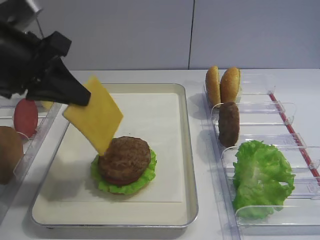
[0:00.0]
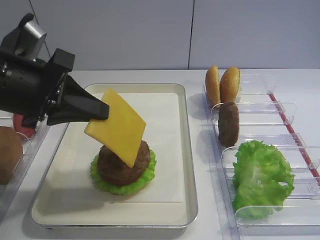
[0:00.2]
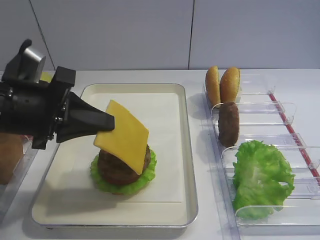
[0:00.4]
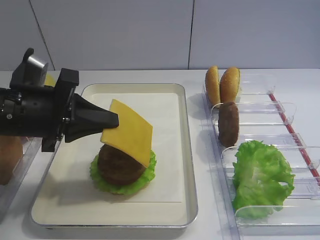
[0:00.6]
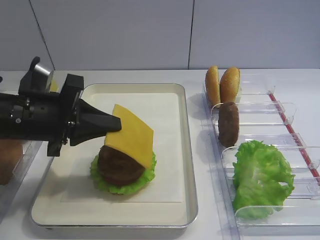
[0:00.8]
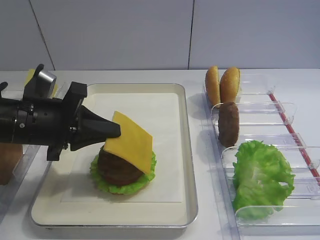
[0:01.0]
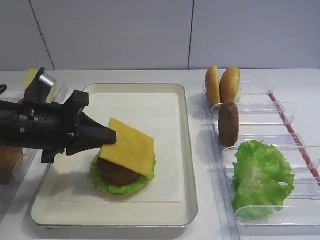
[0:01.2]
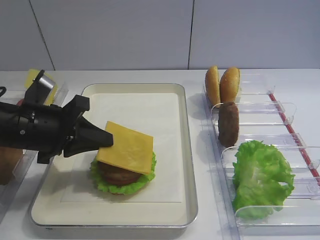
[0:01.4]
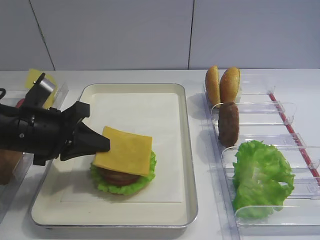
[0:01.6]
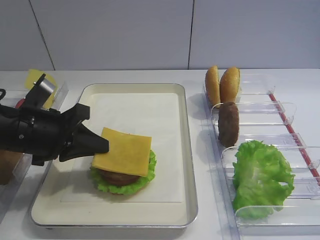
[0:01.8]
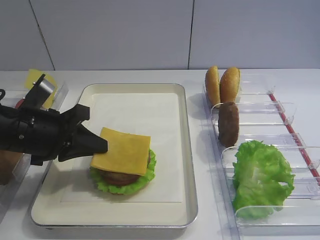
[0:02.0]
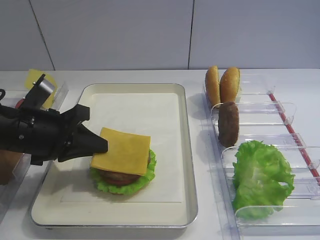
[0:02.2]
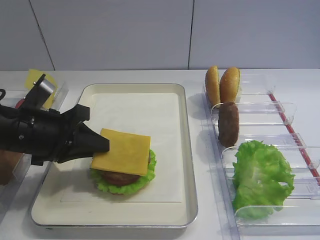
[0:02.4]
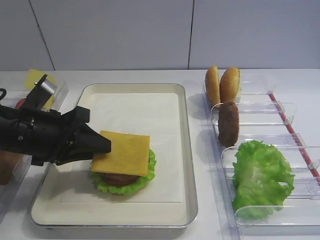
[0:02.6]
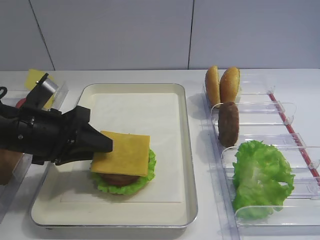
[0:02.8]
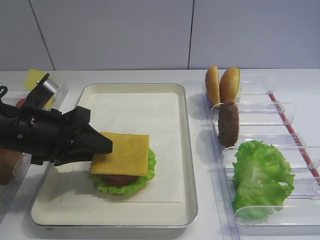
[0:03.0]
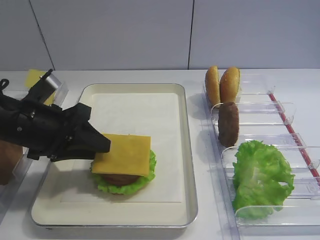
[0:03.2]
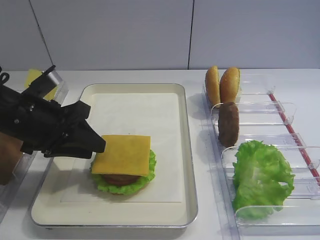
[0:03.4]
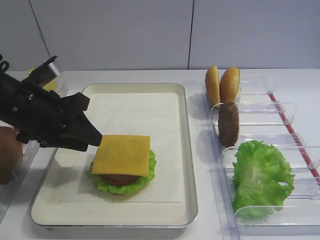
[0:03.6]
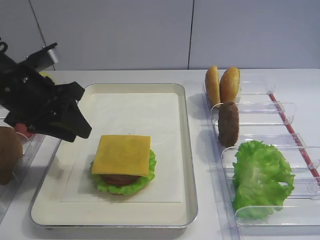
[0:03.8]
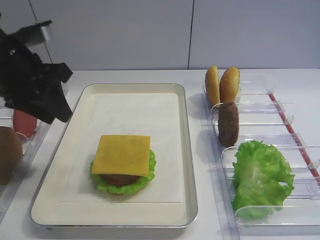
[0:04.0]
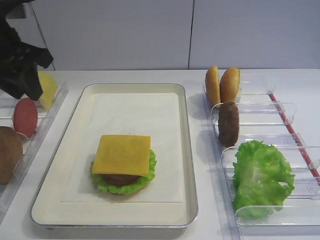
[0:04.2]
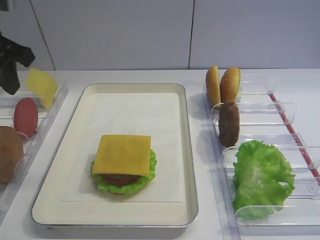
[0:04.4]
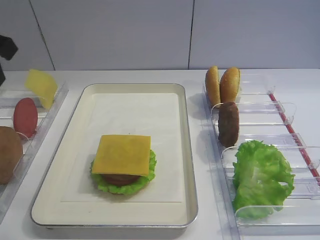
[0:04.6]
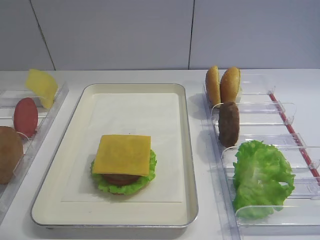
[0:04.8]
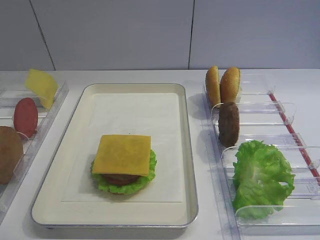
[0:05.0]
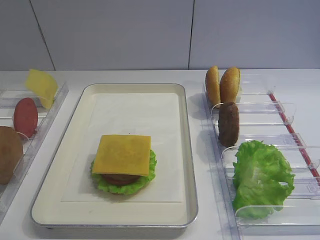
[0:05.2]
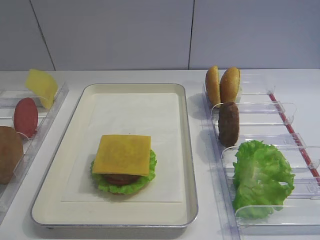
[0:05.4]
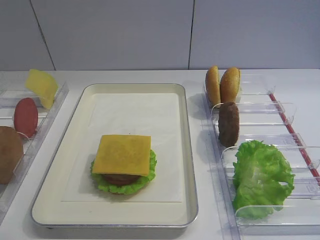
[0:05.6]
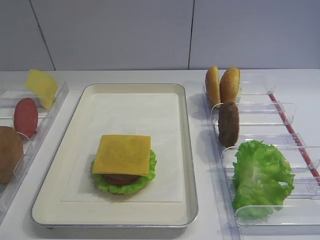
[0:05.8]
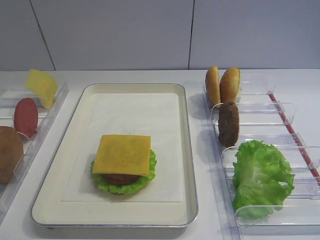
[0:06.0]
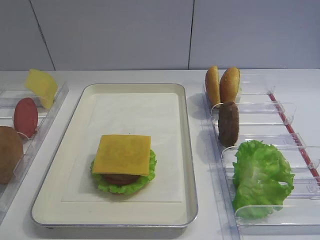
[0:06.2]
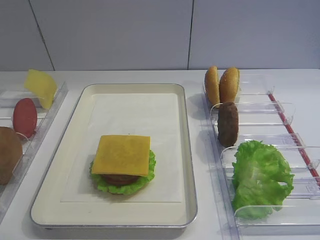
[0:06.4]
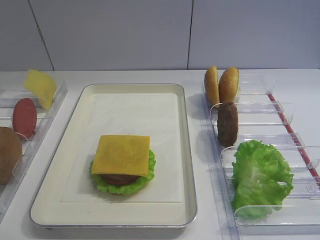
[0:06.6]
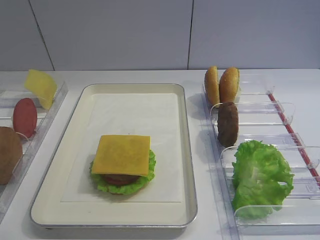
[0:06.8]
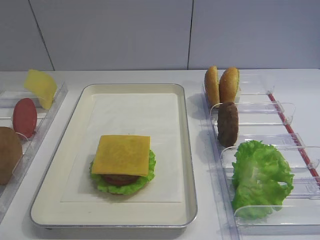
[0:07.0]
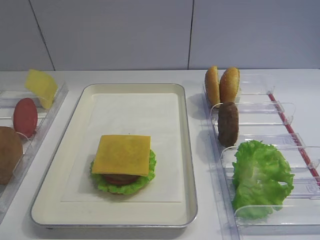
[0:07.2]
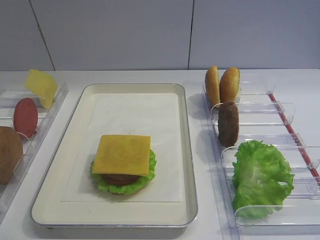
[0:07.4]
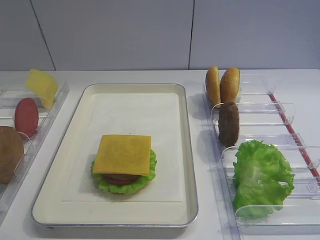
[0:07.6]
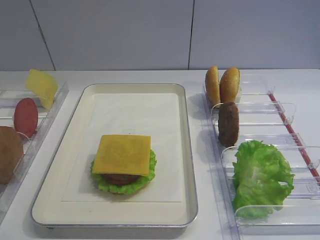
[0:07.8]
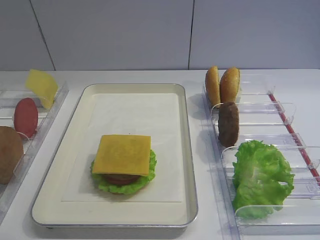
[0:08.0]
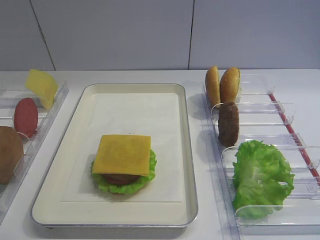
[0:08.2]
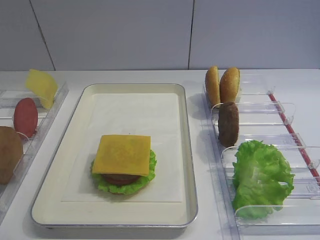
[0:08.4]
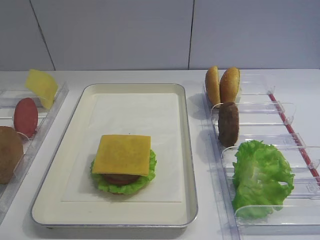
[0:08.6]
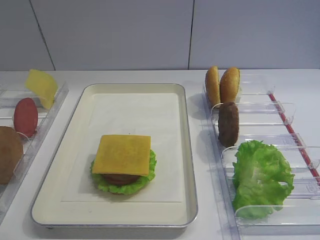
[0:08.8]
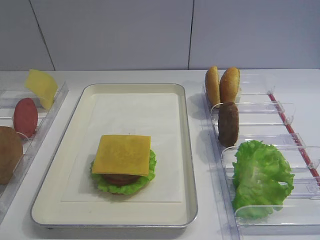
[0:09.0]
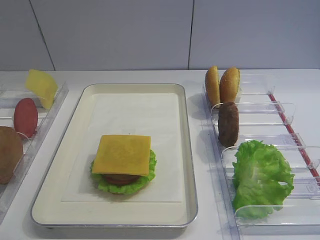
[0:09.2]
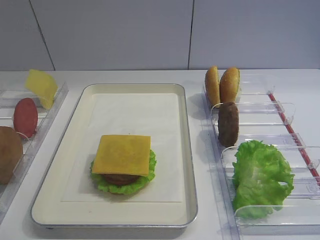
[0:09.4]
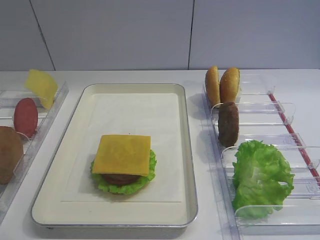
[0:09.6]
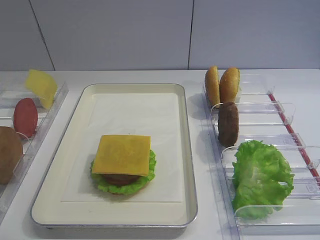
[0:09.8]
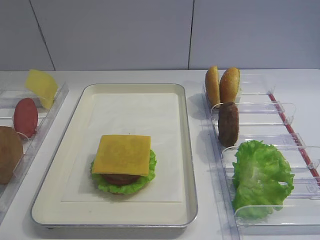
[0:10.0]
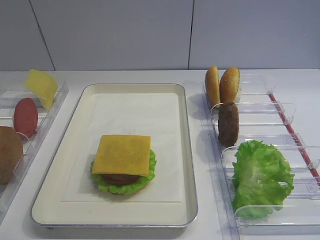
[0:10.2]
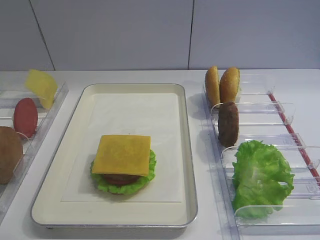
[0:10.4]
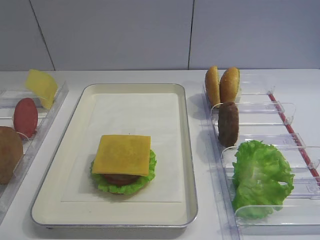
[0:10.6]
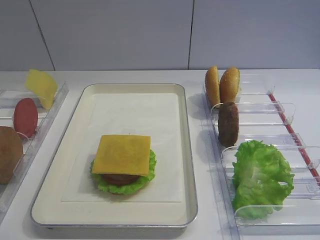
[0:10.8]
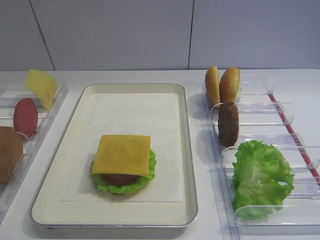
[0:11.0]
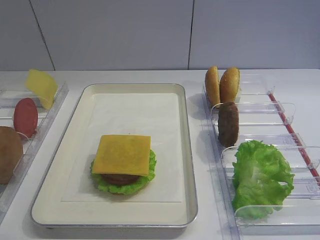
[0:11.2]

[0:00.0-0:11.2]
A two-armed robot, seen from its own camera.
Step, 0:00.0 to 0:03.4: Place the cheese slice on the cutlet with the left gripper.
0:00.0 to 0:01.6: The left gripper shifts roughly 10 cm downward.
0:01.6 to 0:03.2: The left gripper opens.
0:03.2 to 0:04.8: The left gripper travels upward and to the left by about 20 cm.
0:08.0 to 0:11.2: The two grippers keep their place.
